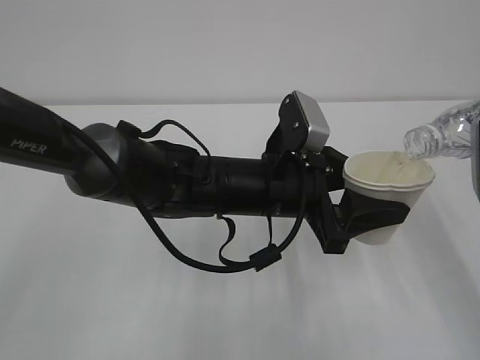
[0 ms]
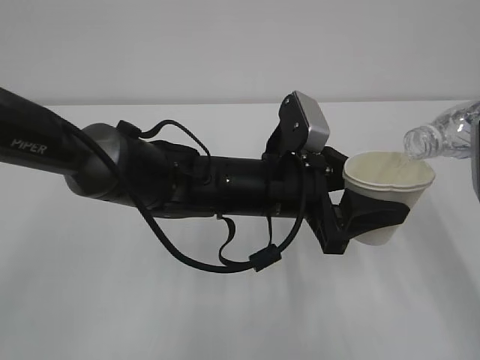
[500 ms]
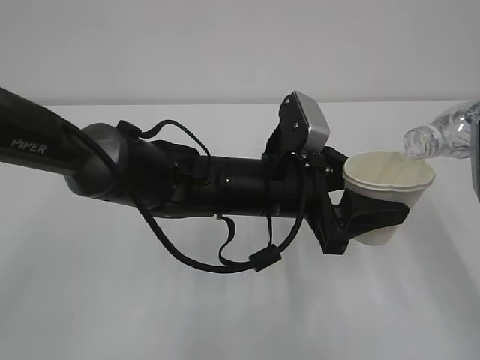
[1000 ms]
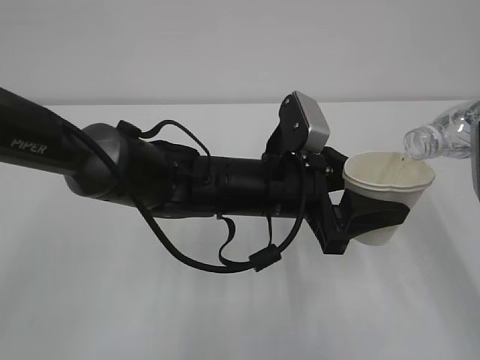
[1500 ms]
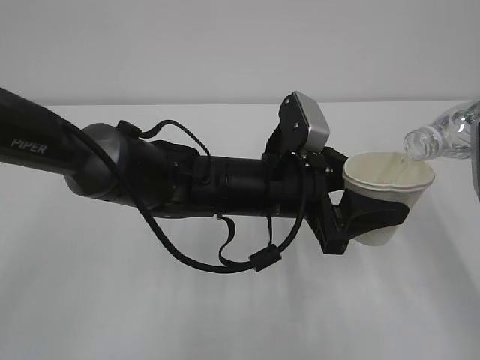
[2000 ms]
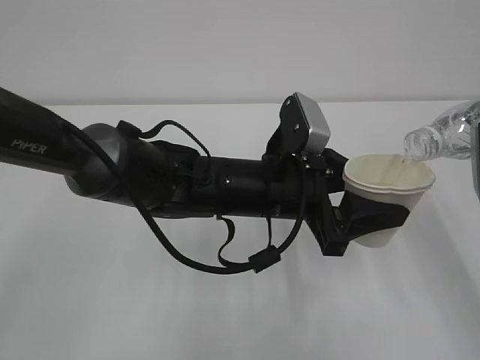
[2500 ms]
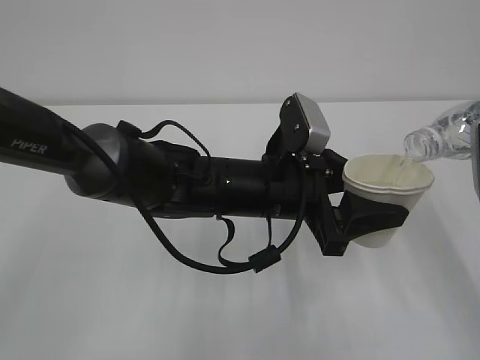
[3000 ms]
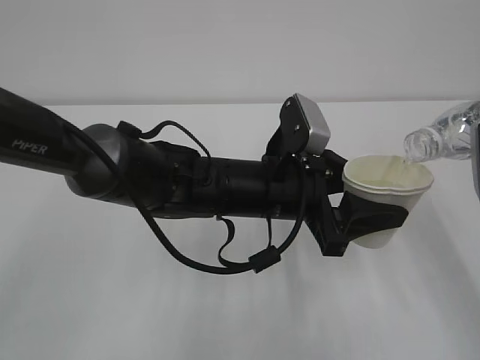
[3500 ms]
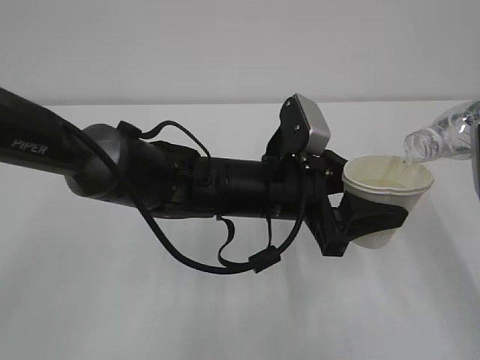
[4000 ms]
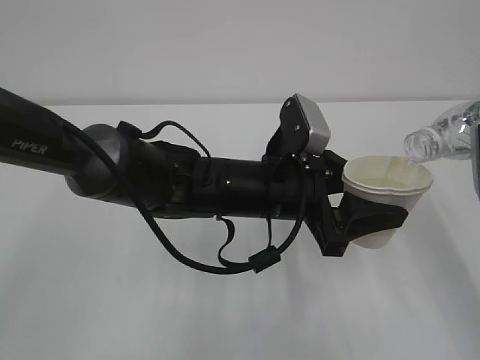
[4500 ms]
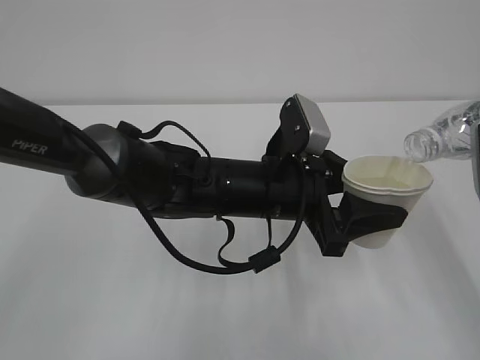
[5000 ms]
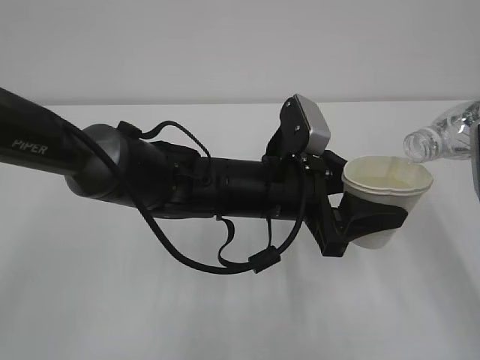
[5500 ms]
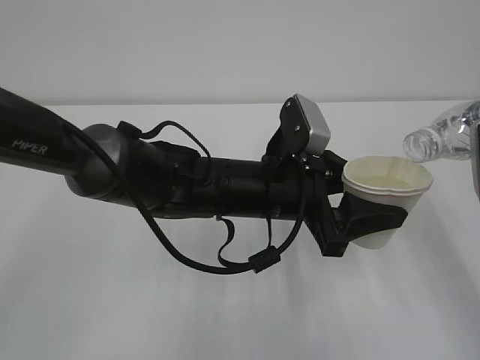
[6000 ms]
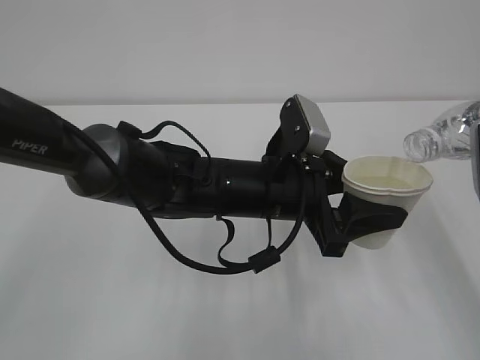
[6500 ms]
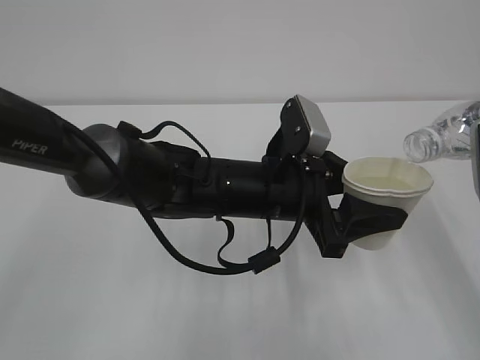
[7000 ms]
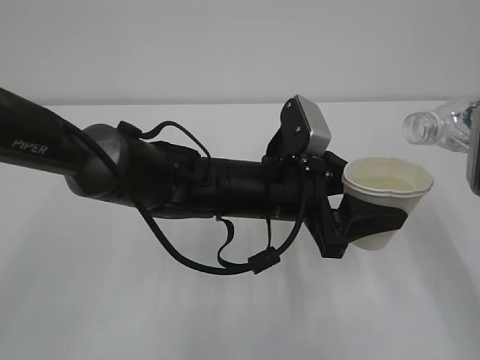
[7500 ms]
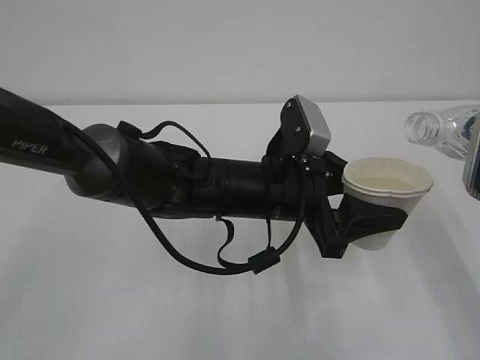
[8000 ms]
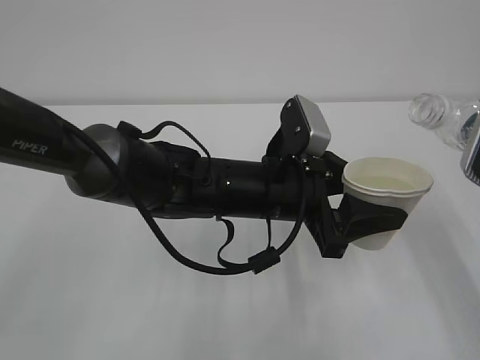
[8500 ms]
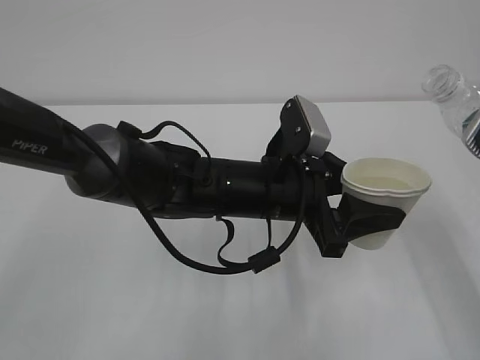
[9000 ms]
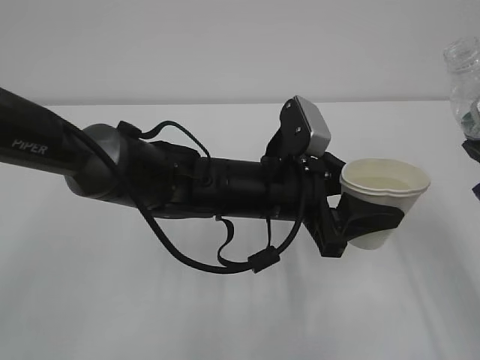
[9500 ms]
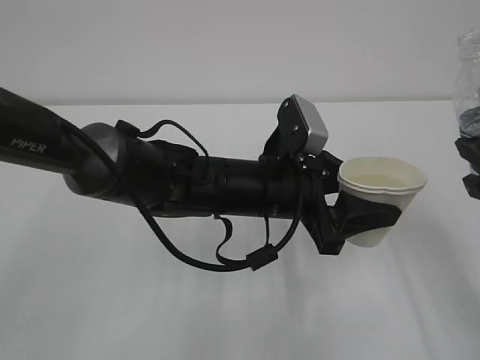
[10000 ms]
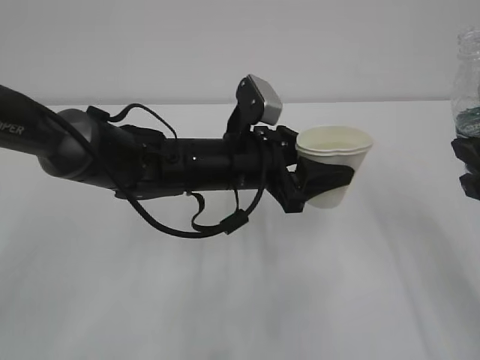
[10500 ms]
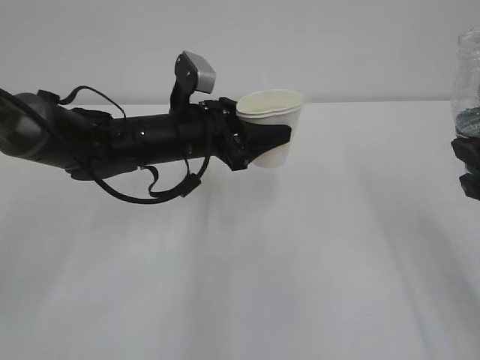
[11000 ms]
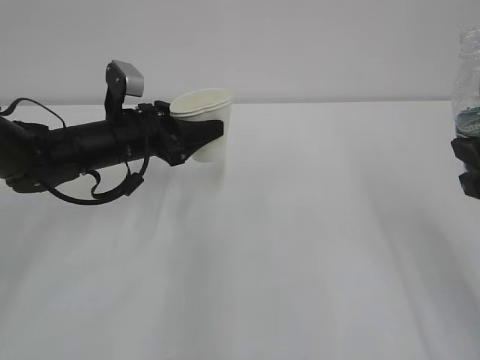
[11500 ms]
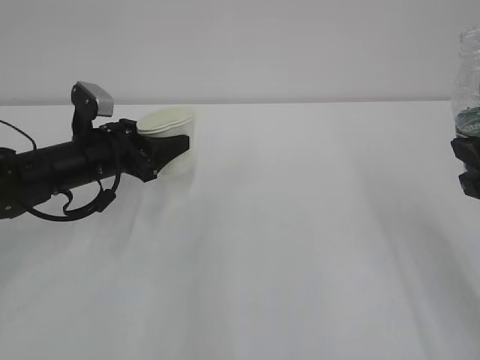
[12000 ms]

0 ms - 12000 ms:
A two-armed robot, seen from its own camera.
0 ms - 6000 ms: The two grippers keep their place.
6000 ms - 8000 ms: The grippers stay close to where they were, moving slightly.
10000 ms - 12000 ms: The left gripper is displaced to the left and forward by some 25 cm.

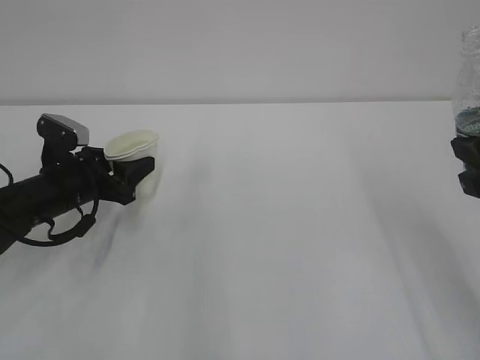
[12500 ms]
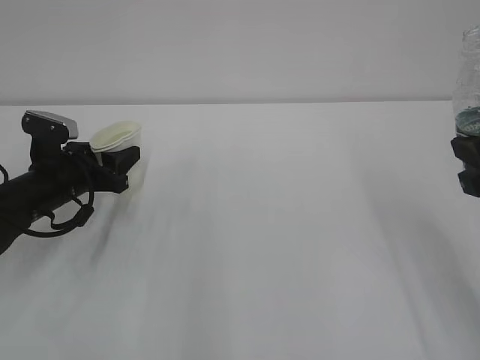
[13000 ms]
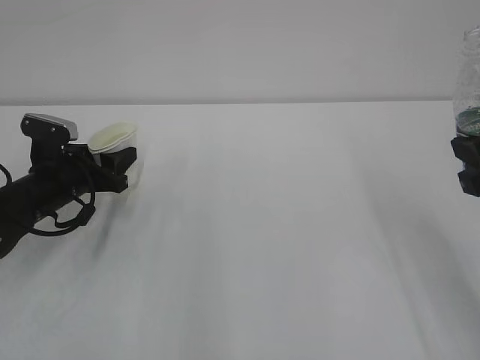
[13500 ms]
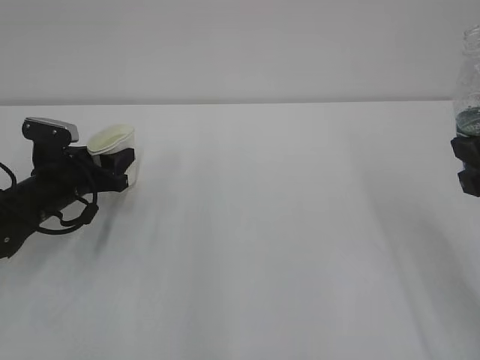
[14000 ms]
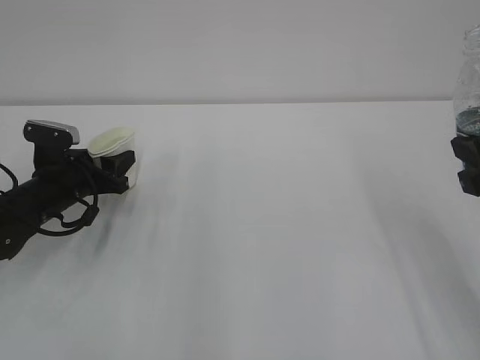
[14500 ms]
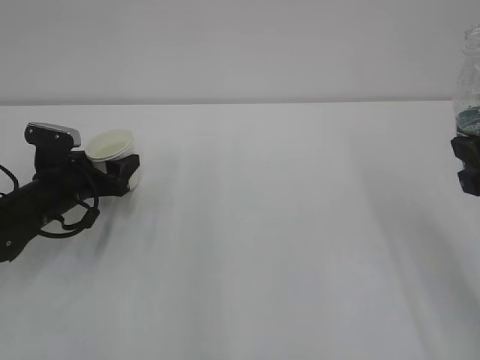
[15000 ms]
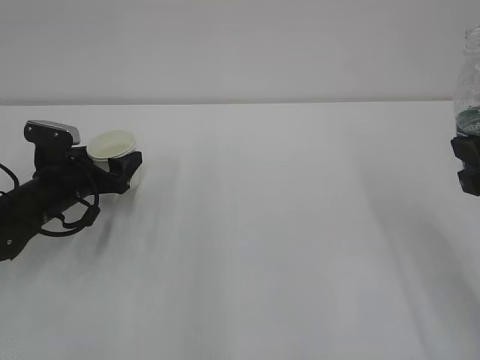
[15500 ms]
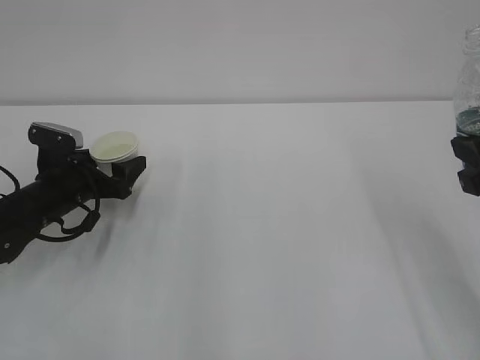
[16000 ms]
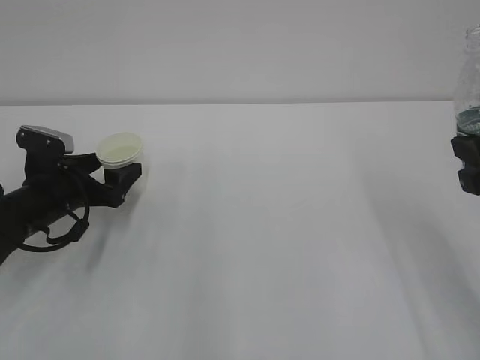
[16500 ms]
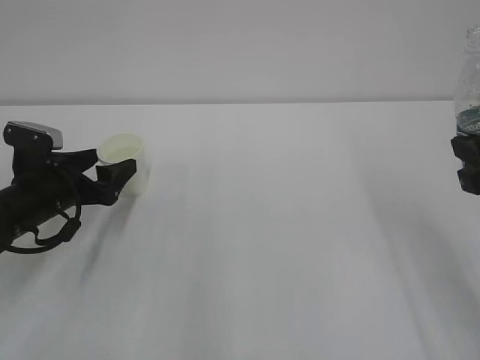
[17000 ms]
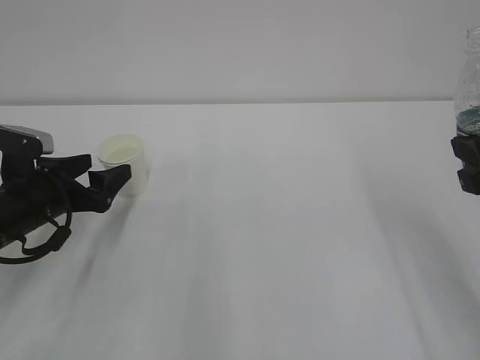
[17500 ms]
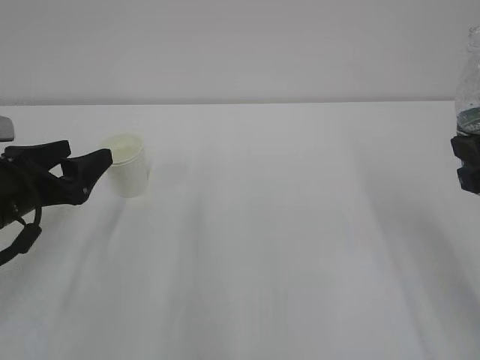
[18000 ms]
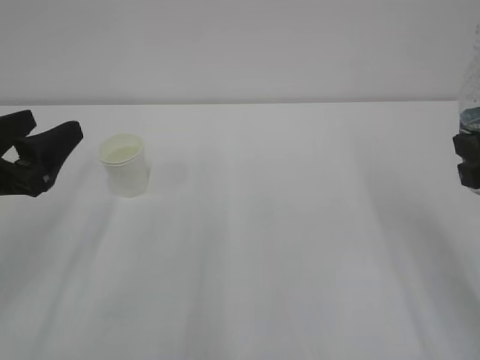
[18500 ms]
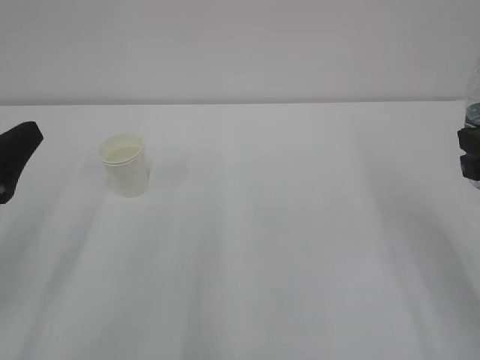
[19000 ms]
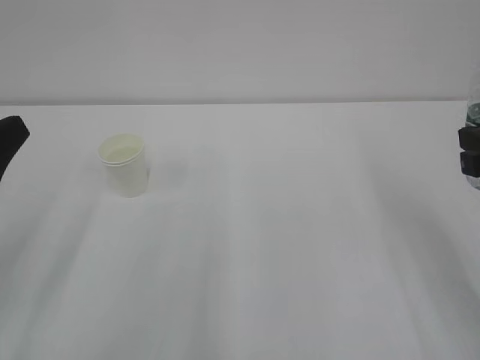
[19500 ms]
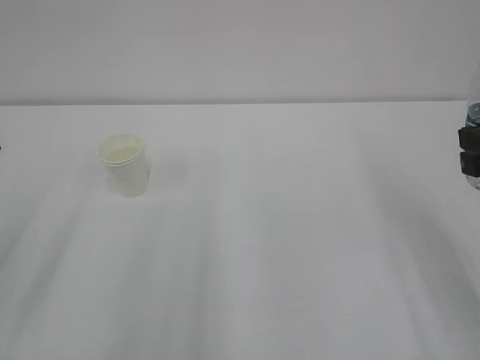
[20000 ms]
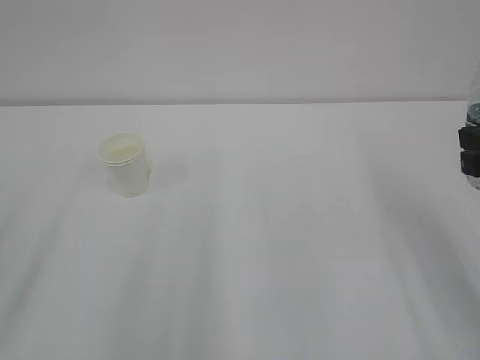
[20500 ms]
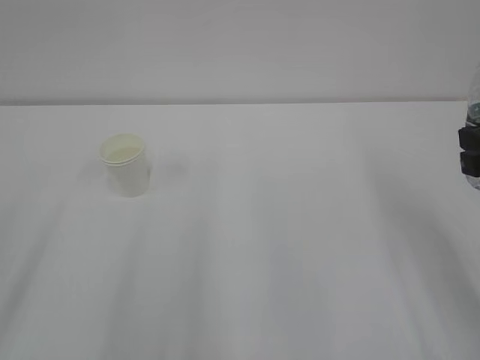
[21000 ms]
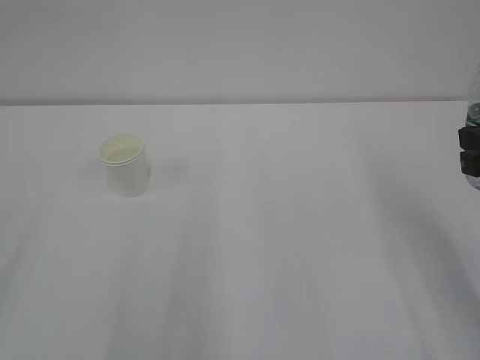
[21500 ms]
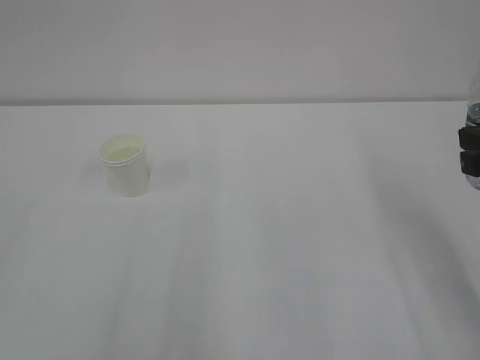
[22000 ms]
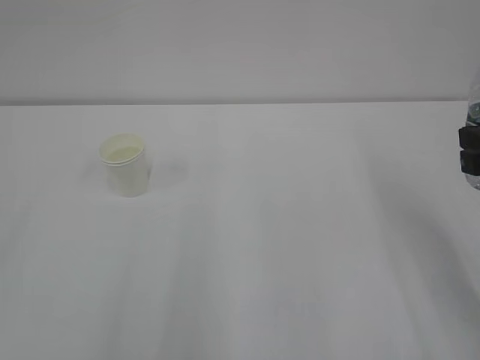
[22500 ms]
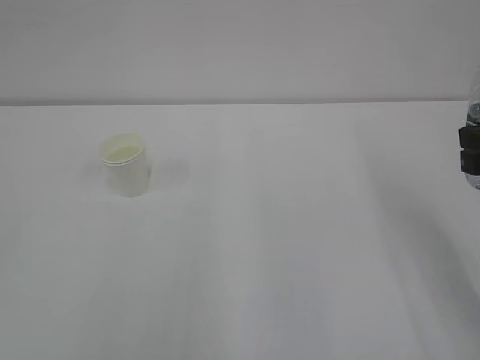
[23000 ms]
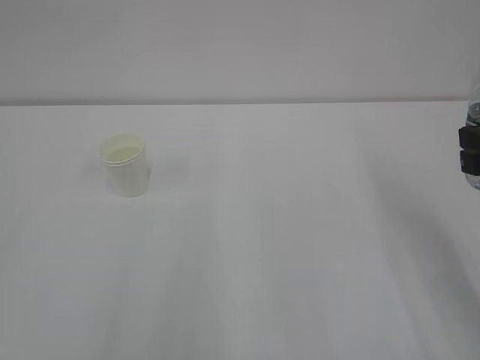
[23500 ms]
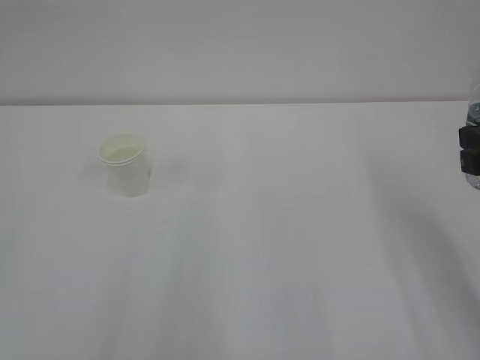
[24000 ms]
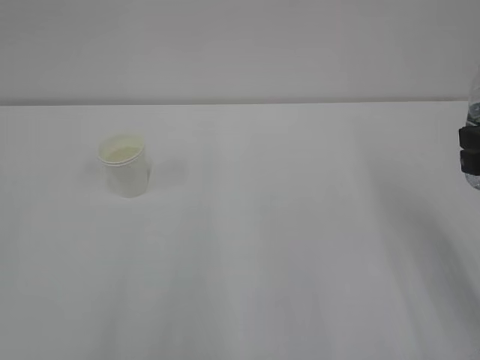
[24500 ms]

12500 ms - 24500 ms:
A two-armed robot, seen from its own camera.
12500 ms - 14500 ms: The grippers move only a little.
14500 ms - 16500 ms: The left gripper opens.
16500 ms - 18500 ms: The left gripper moves upward and backward, some 15 cm.
18500 ms - 20500 ms: The left gripper shifts approximately 15 cm backward and upward.

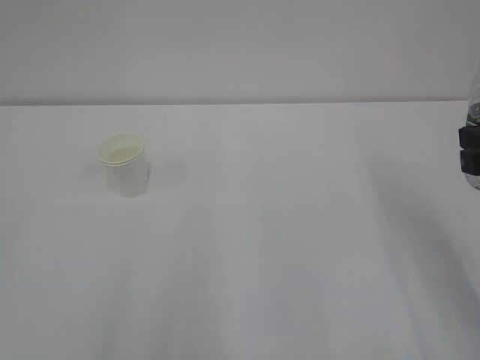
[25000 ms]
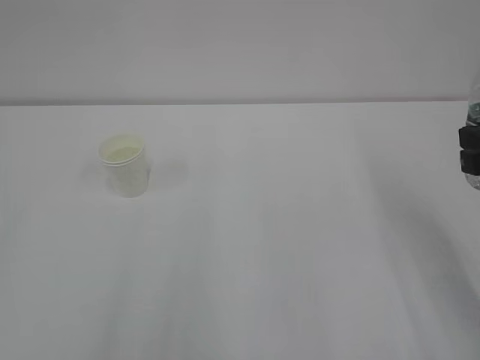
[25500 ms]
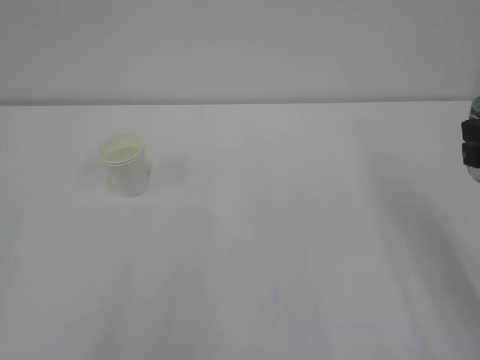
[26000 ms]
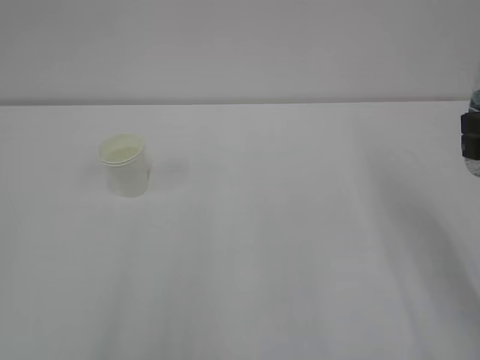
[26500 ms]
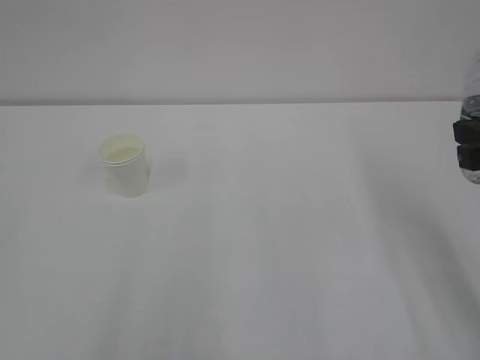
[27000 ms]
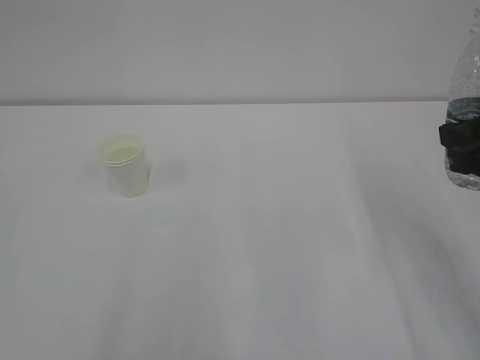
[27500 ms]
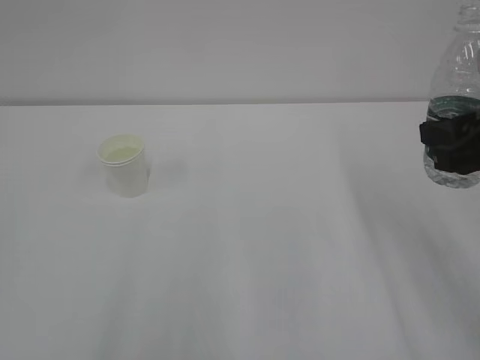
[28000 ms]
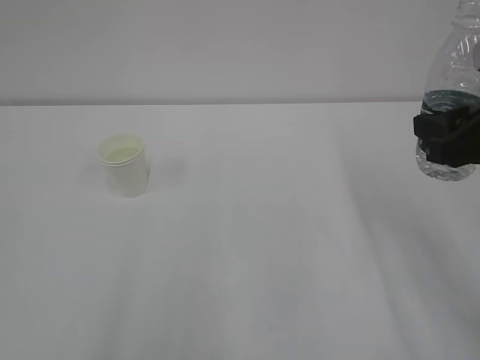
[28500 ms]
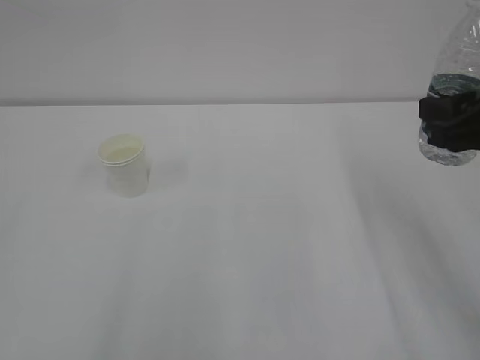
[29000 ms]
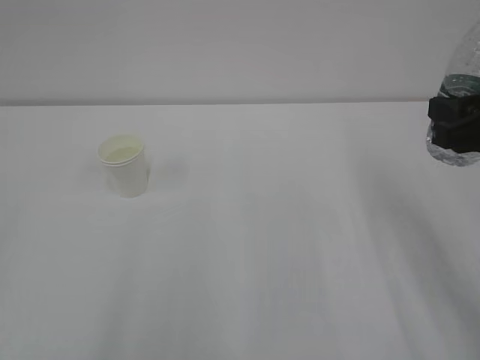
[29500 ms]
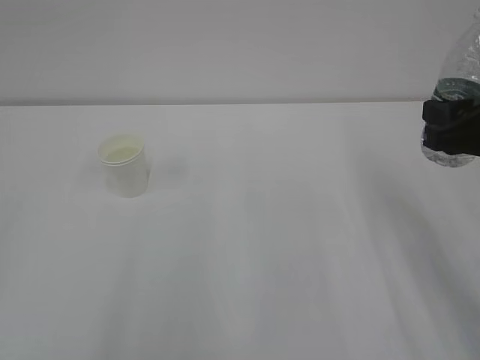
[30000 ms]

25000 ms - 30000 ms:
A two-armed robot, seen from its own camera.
25000 ms - 30000 ms: The grippers make only small movements.
